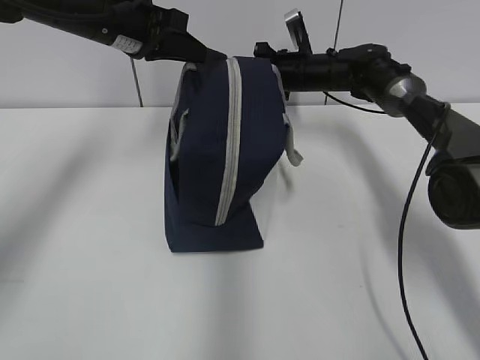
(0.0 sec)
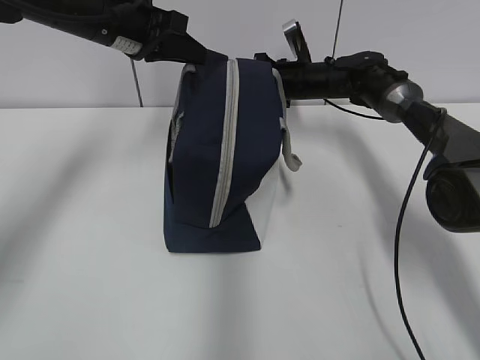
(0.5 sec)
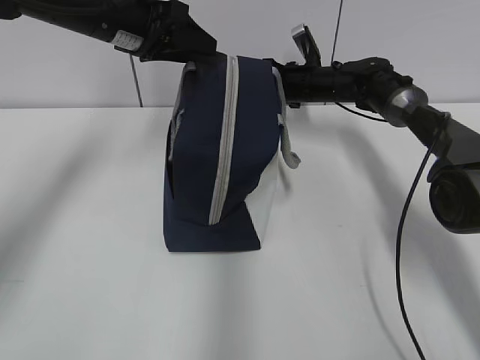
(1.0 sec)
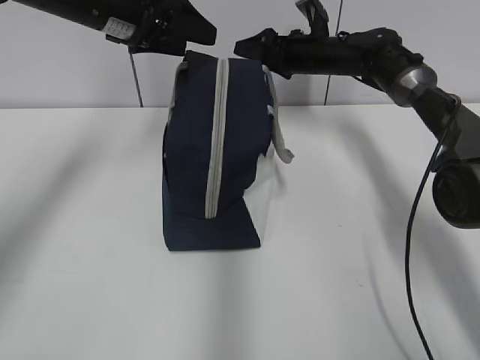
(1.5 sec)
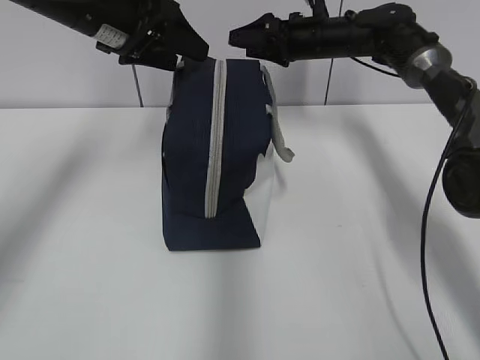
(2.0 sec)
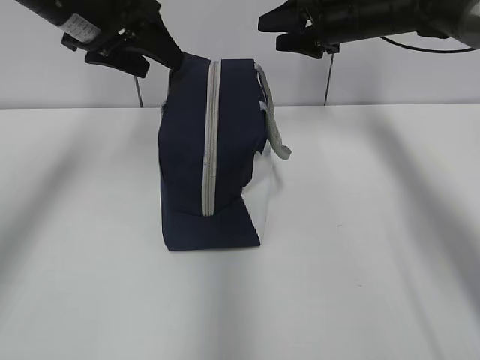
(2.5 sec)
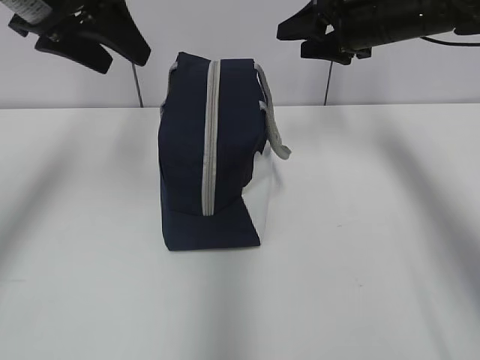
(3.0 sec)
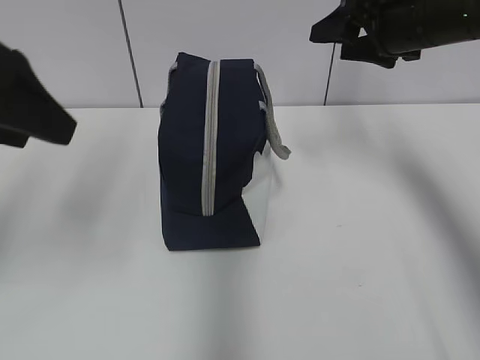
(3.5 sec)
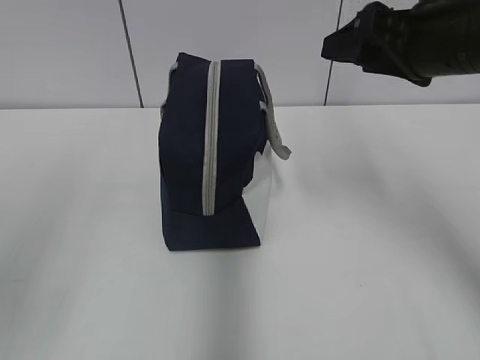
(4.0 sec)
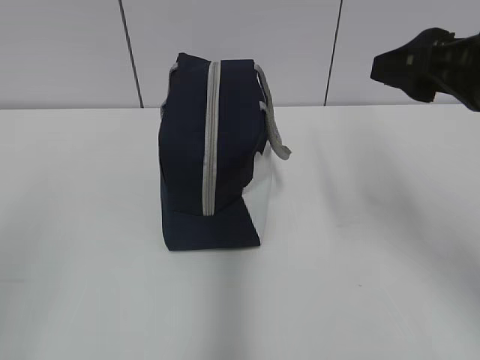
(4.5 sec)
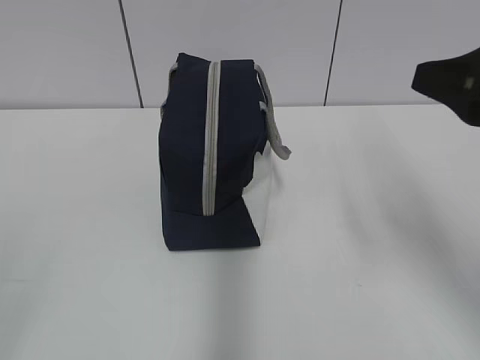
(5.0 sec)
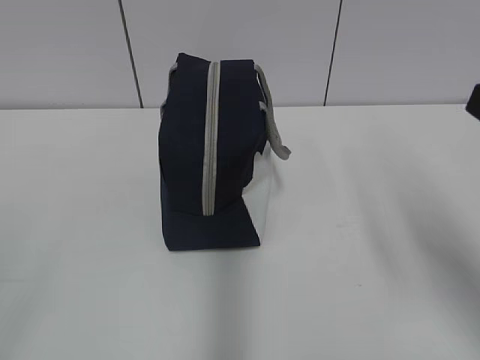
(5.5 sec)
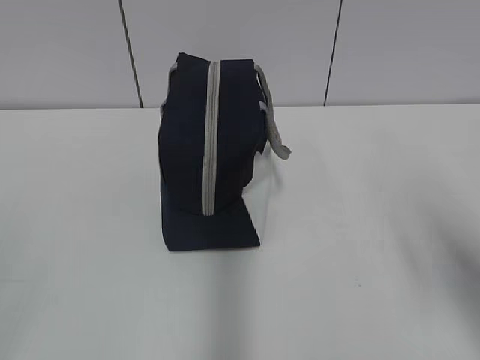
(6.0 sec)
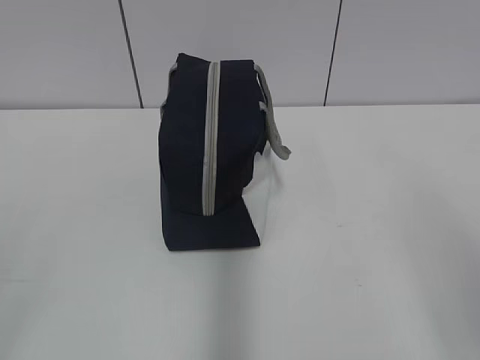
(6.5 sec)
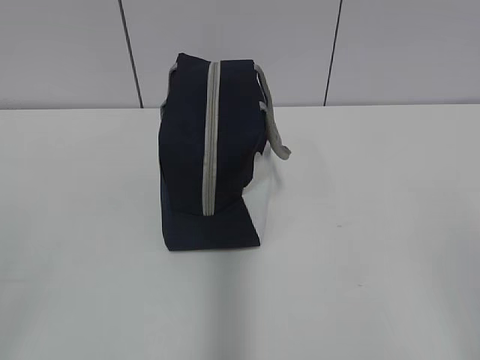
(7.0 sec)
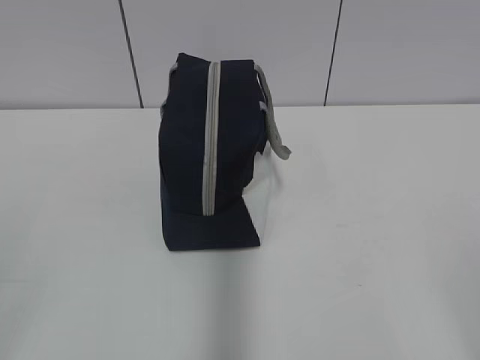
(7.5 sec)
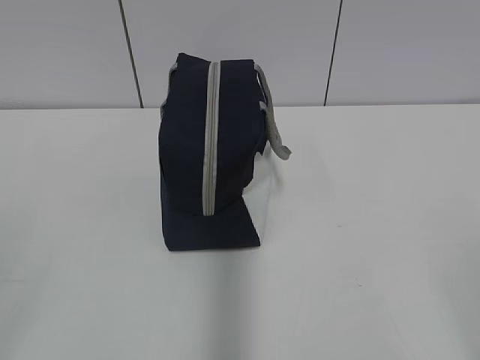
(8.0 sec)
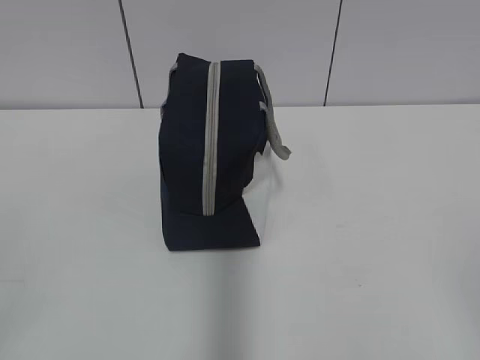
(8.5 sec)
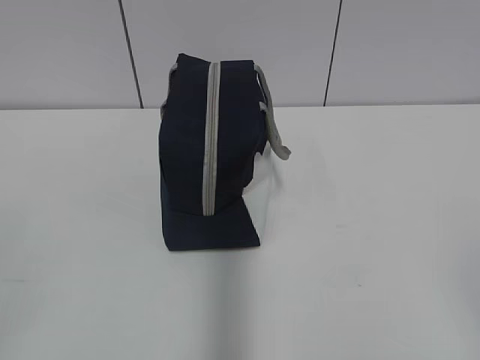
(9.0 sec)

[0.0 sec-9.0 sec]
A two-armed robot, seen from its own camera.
0.0 sec to 2.0 sec: The right gripper is displaced upward by approximately 5 cm, and opens up. The left gripper opens.
2.0 sec to 4.5 sec: The grippers both shift backward by some 35 cm.
4.5 sec to 7.0 sec: The right gripper goes about 25 cm backward.

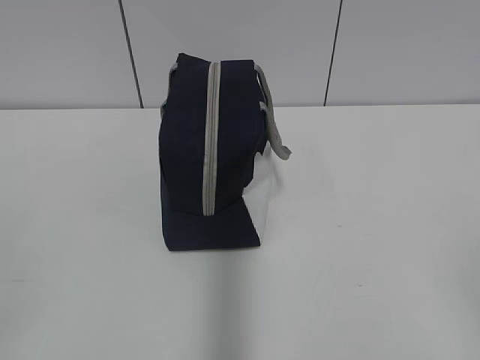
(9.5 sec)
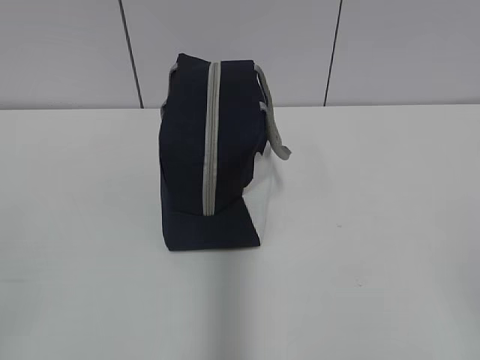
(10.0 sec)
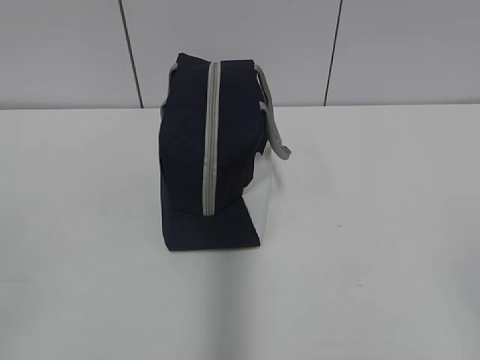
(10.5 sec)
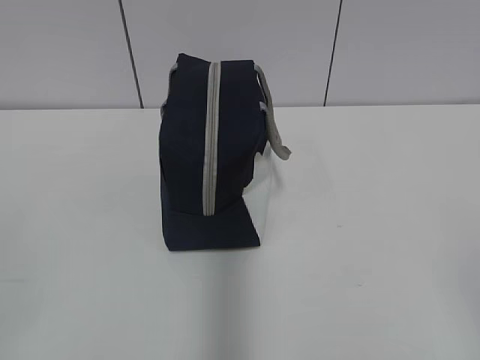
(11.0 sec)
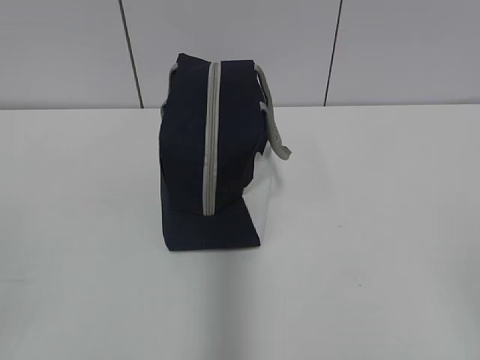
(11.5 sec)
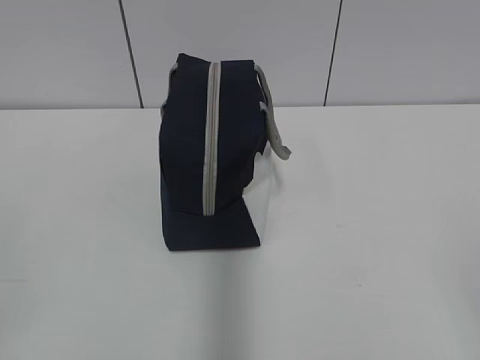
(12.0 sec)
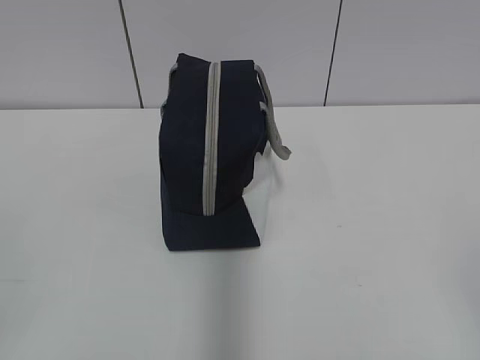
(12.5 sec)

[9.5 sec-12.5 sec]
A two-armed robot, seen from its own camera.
9.5 sec to 12.5 sec: Both grippers stay about where they are.
